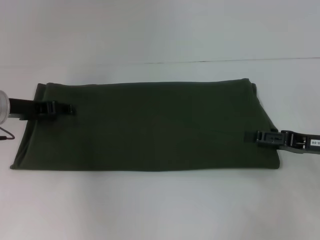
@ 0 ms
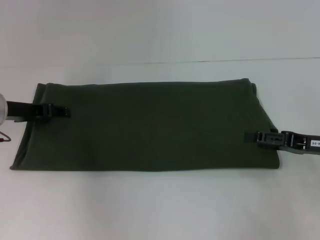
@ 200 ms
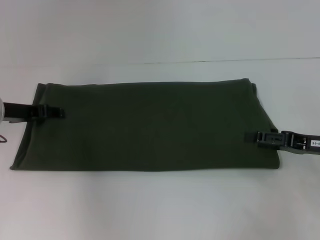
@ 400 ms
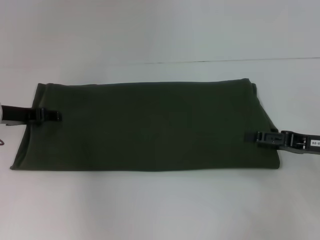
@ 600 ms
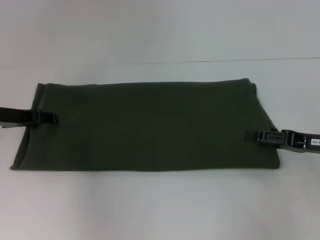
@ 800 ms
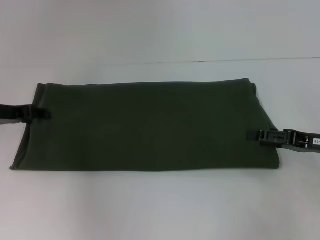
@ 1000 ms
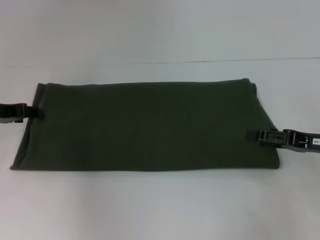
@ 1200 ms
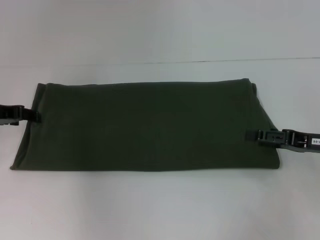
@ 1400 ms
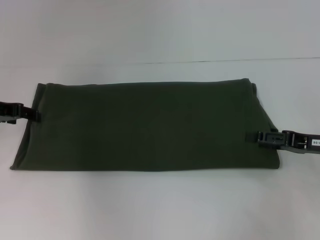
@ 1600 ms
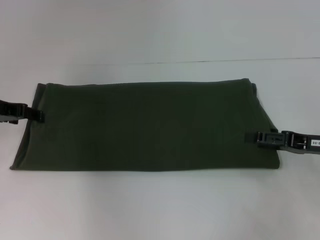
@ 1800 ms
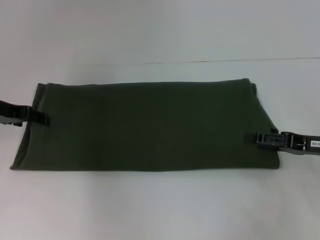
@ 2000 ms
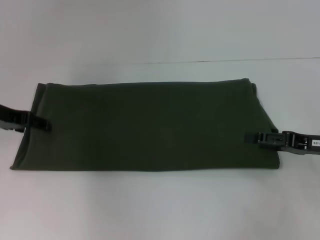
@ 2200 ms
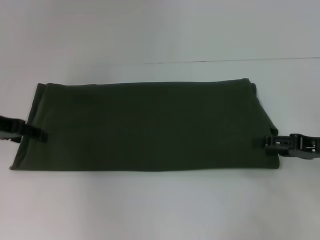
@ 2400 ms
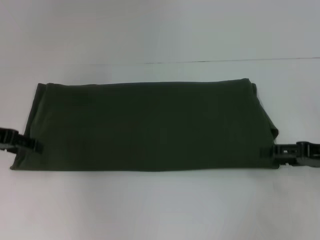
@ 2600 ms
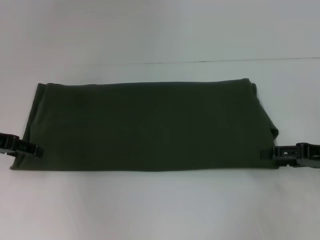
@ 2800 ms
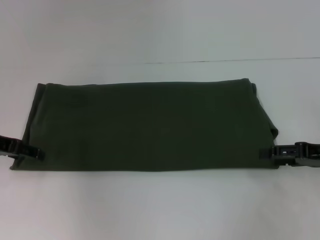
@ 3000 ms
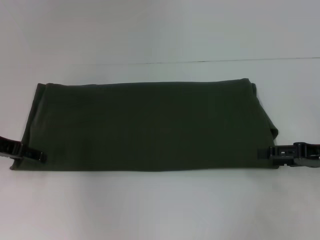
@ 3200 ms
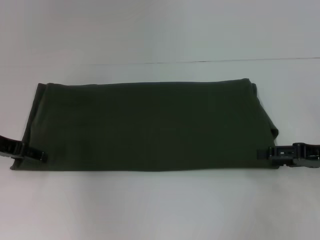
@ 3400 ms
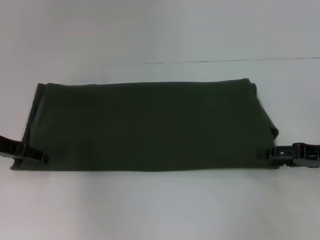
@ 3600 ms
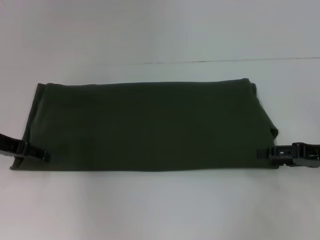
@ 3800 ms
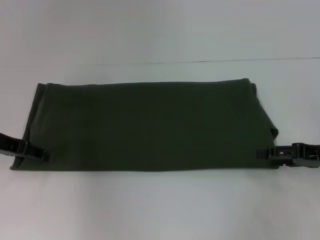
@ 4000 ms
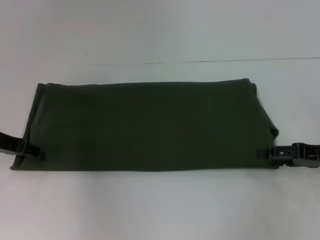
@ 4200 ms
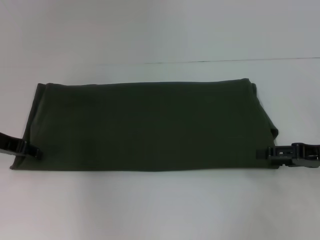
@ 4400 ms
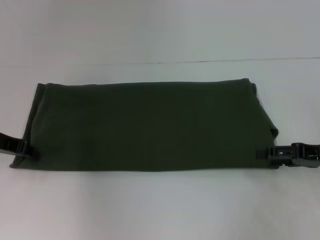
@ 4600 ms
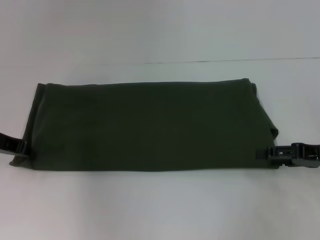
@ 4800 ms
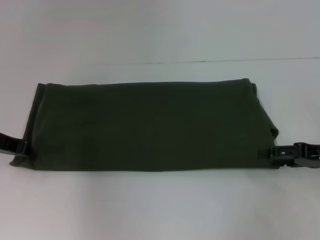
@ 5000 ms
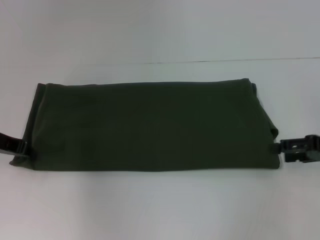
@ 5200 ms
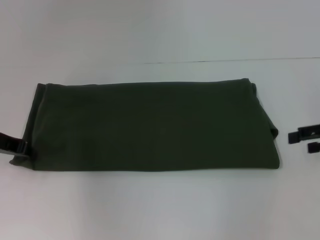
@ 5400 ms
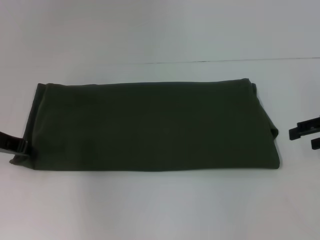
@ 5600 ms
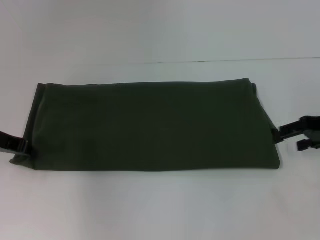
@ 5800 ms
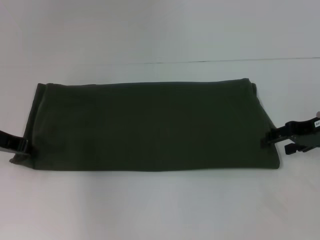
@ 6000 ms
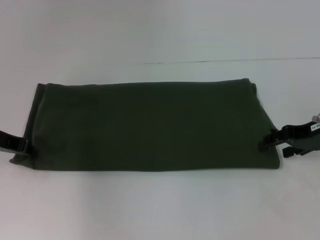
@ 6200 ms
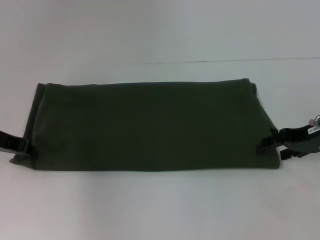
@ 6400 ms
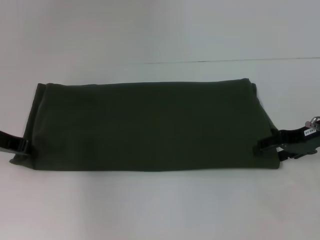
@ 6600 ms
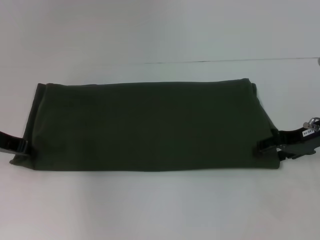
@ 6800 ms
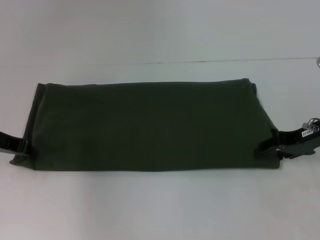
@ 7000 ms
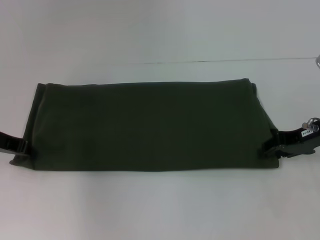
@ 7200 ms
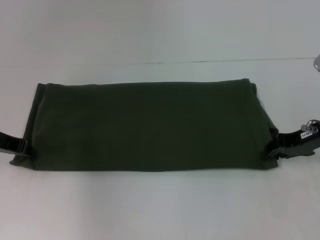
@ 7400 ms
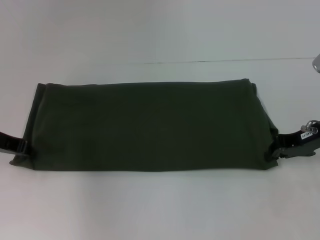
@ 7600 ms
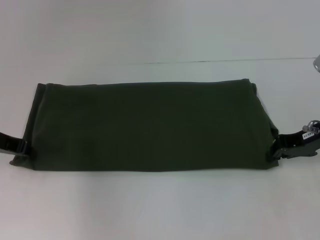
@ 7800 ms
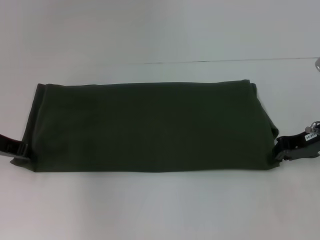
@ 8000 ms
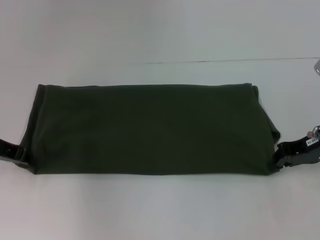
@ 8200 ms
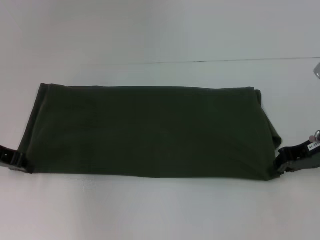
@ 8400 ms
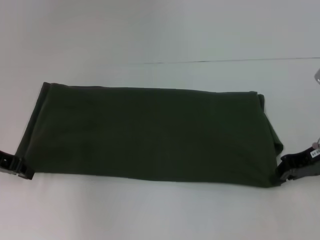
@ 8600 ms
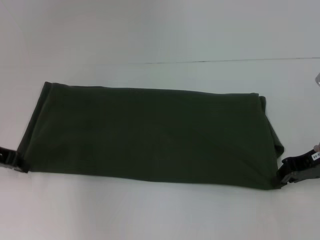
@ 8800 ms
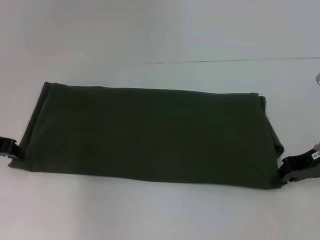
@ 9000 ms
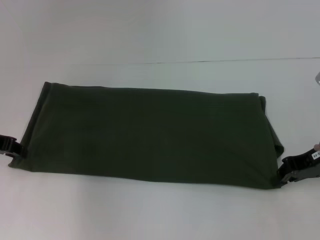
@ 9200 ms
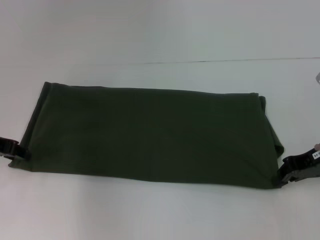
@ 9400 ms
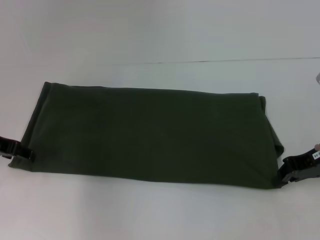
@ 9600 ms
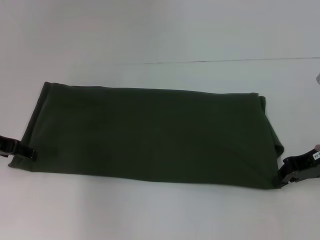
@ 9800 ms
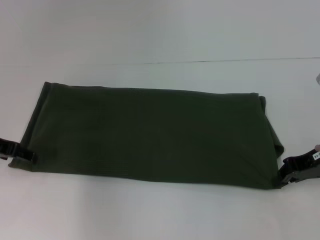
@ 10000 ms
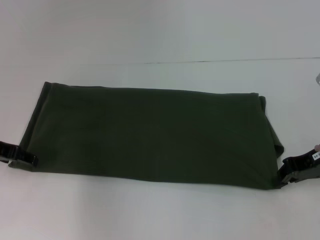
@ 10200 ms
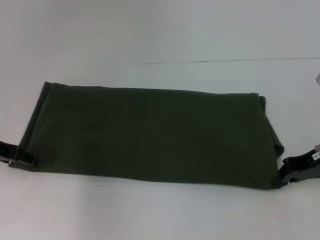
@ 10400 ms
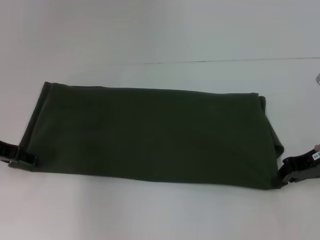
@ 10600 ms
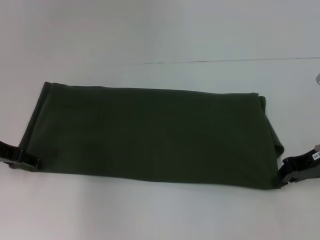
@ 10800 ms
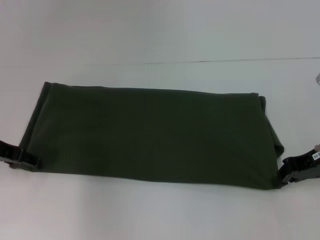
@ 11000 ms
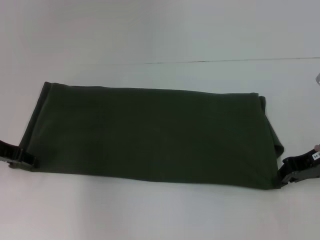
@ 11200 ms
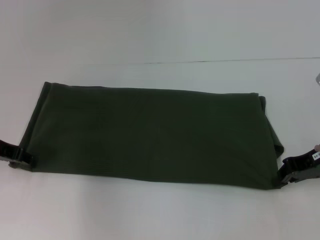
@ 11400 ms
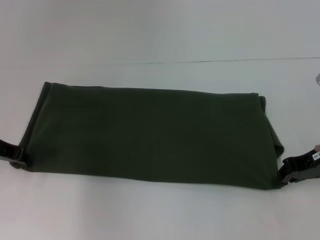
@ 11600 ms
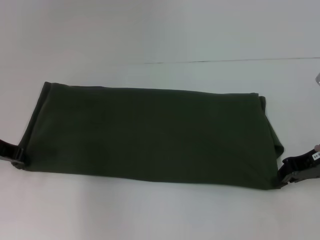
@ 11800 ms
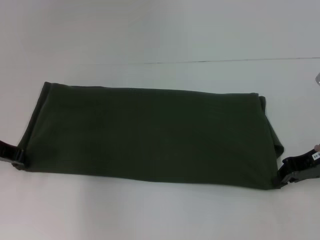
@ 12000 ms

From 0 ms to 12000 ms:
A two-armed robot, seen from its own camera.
From 0 ms to 1600 ms: The grippers make only small movements.
From 1600 ms to 3000 ms: The grippers make only small movements.
From 4400 ms to 6000 ms: The right gripper shifts approximately 5 cm forward.
From 6000 ms to 7600 ms: The right gripper closes its fingers.
From 7600 ms to 9000 ms: The grippers make only small movements.

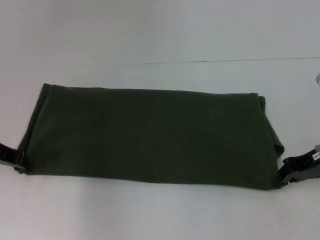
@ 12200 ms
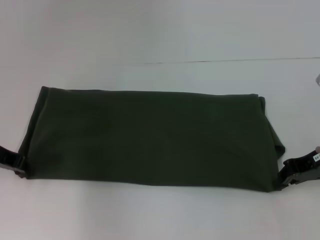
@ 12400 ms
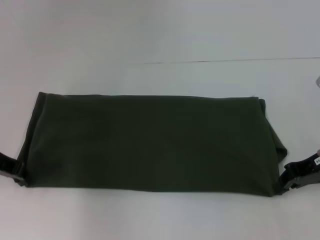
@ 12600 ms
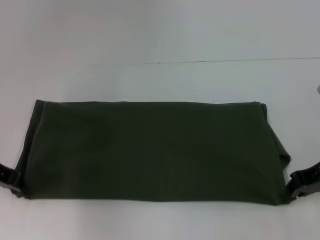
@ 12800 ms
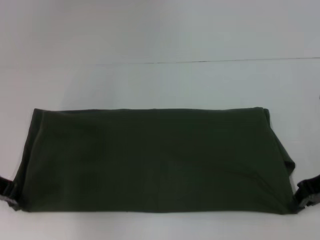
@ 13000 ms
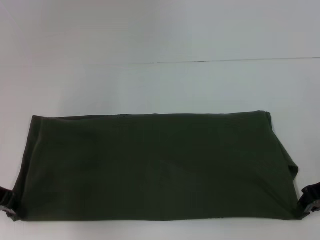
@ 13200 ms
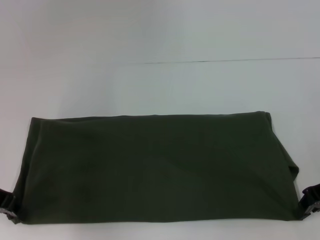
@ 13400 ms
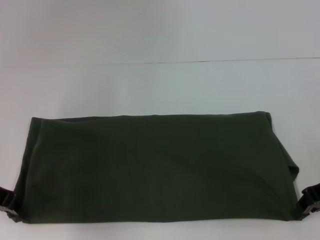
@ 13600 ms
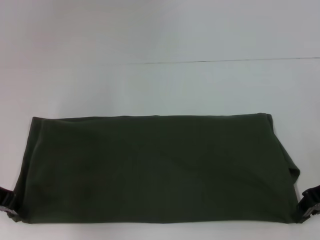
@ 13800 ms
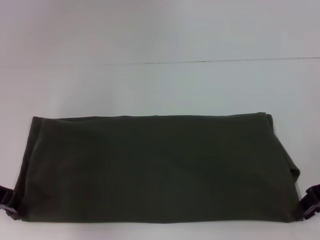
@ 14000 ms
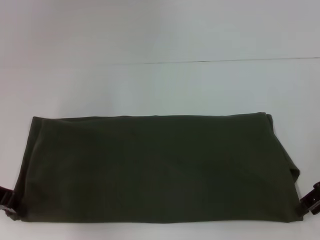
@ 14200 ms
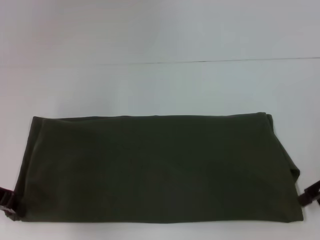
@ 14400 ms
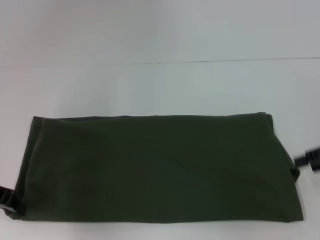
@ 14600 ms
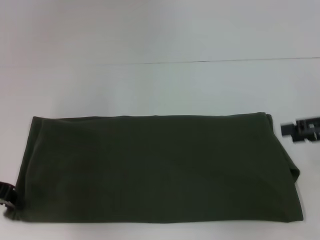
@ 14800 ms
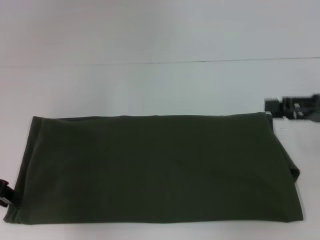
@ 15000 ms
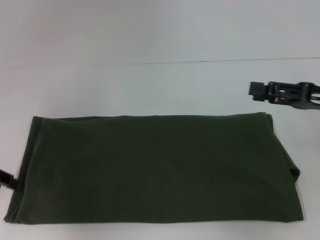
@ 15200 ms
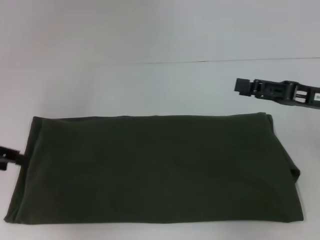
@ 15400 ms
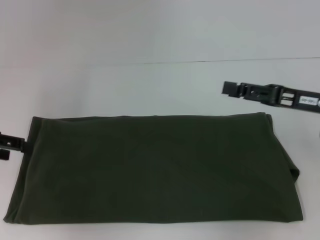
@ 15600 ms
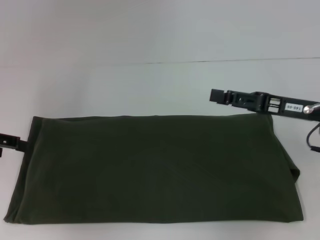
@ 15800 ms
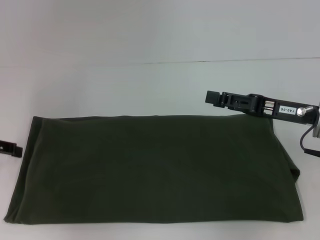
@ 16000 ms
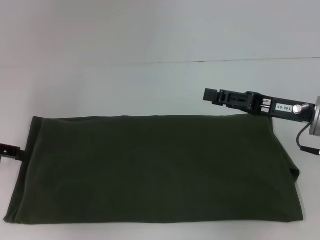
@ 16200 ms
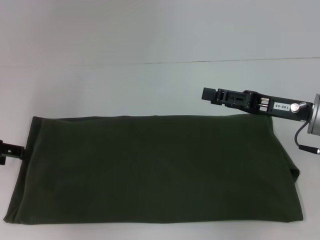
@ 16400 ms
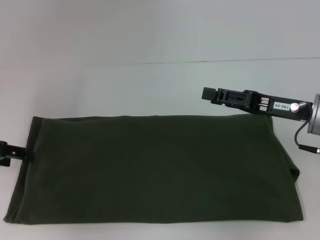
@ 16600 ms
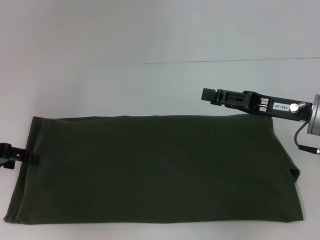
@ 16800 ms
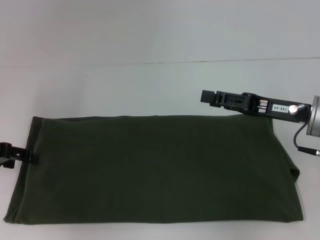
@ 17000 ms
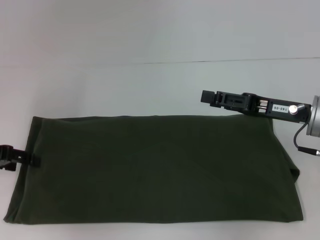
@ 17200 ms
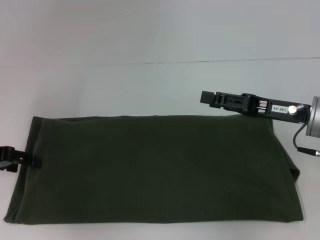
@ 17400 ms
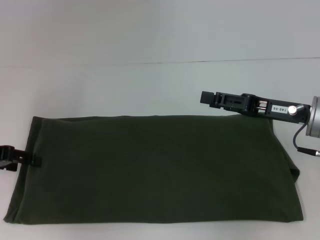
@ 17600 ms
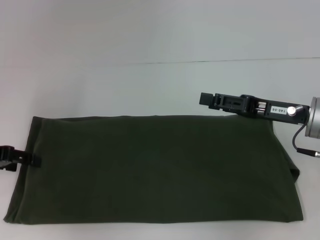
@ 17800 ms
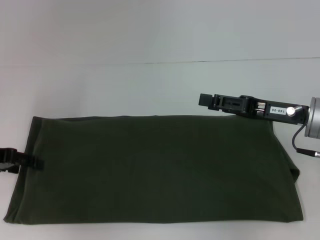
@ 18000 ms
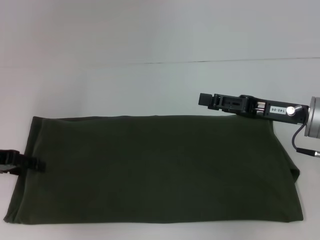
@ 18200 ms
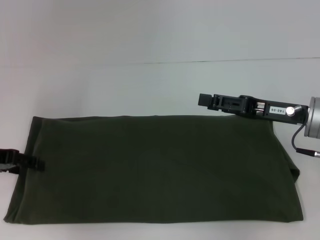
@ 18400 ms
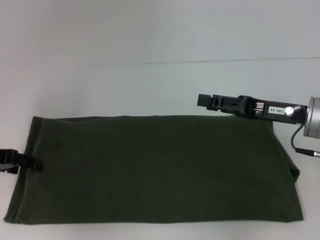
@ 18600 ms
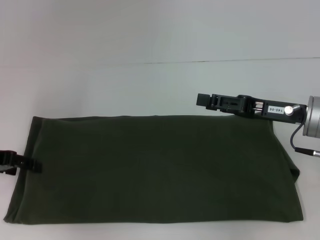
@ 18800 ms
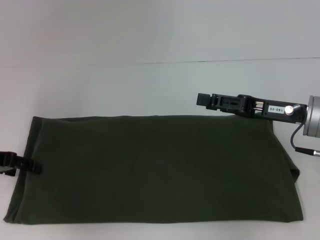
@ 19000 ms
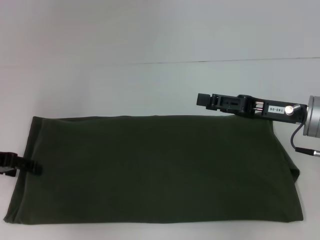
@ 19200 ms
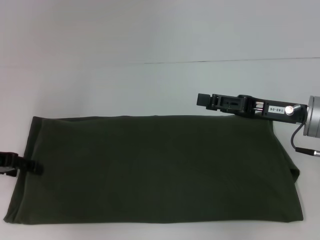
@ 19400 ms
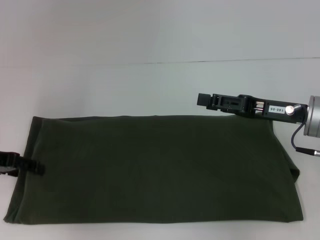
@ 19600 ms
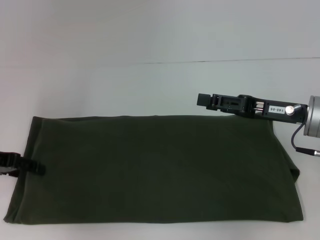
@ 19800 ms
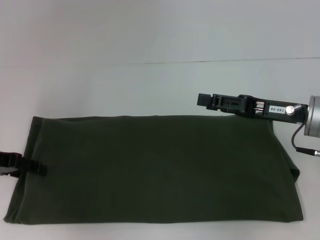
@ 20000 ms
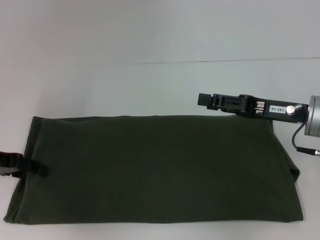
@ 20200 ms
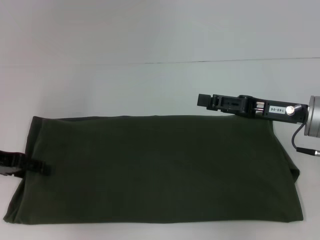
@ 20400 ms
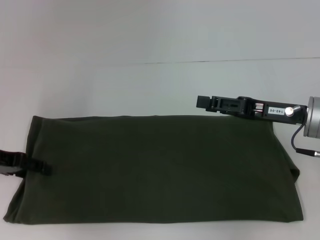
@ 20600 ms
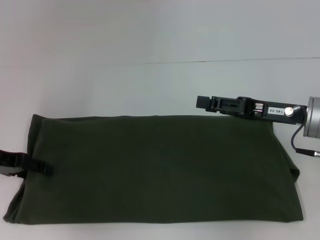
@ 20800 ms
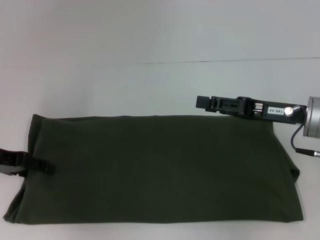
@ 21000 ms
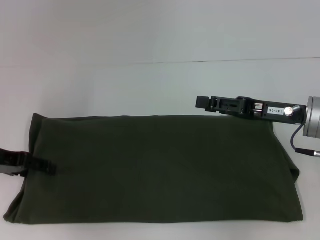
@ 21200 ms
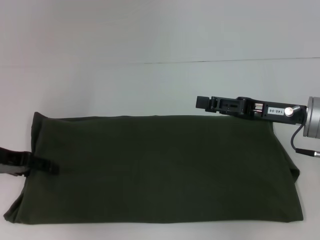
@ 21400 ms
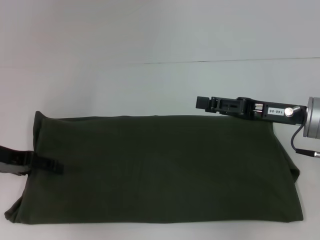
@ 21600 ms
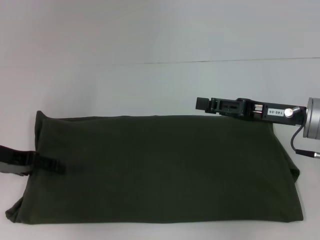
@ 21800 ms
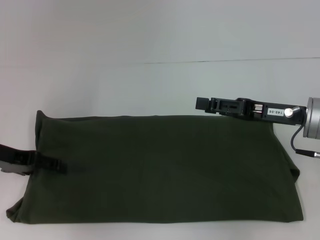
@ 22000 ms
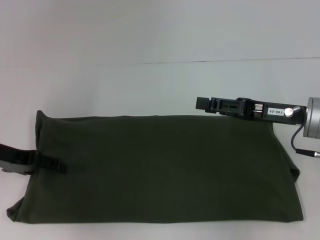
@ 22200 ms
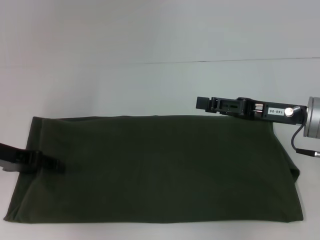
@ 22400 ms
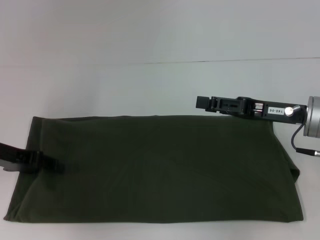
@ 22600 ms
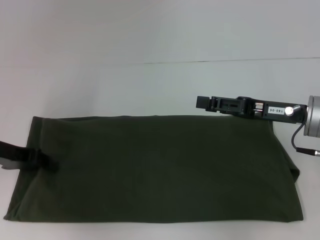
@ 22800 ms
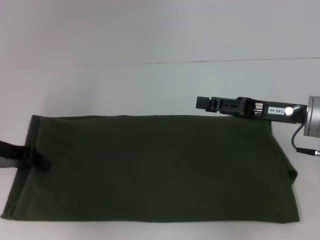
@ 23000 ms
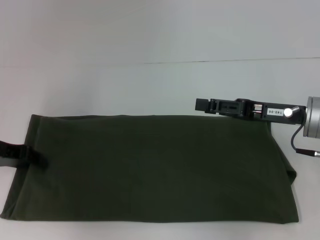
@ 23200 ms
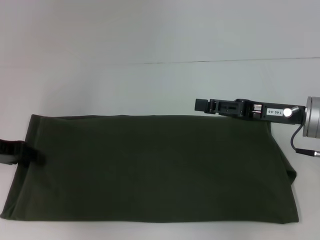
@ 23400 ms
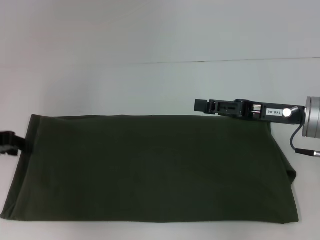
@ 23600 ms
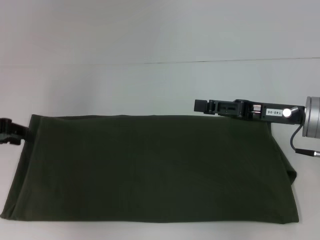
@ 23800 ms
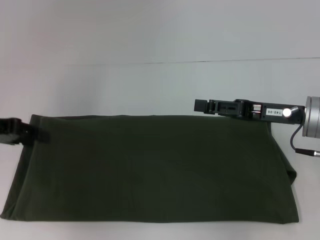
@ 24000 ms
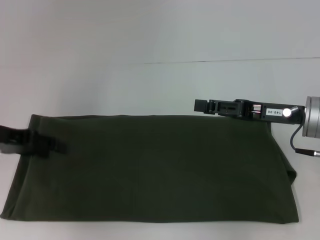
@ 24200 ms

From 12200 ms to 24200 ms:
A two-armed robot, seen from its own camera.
From 13800 ms to 15200 ms: The right gripper opens up.
From 15200 ms to 16600 ms: The left gripper opens its fingers. The right gripper moves to the left, about 5 cm.
From 16600 ms to 18200 ms: The grippers stay close to where they were, moving slightly.
From 18200 ms to 19800 ms: Neither gripper changes place.
From 19800 ms to 21200 ms: Neither gripper changes place.
From 21200 ms to 22600 ms: The grippers move only a little.
From 22600 ms to 24200 ms: The left gripper closes, then opens again.
